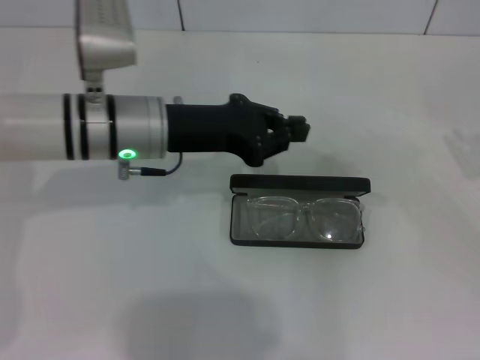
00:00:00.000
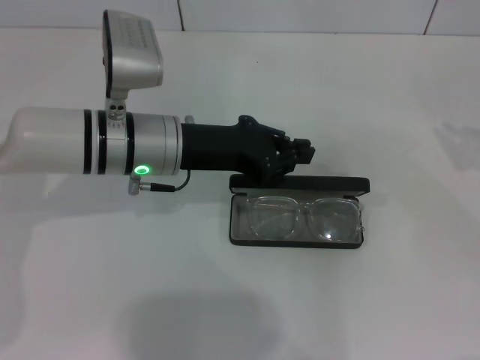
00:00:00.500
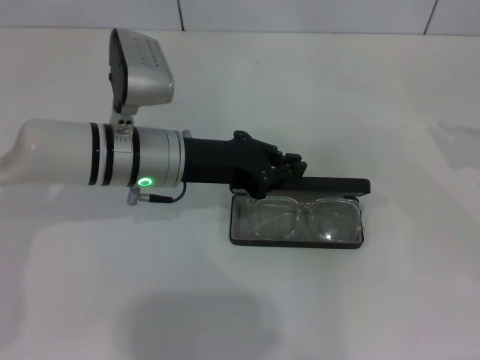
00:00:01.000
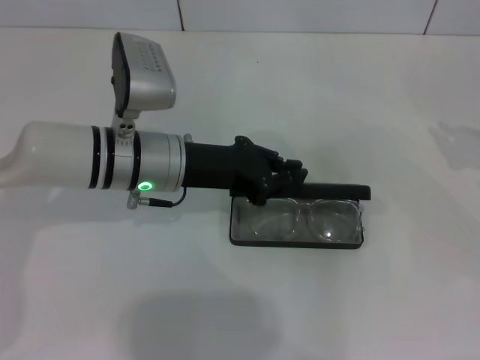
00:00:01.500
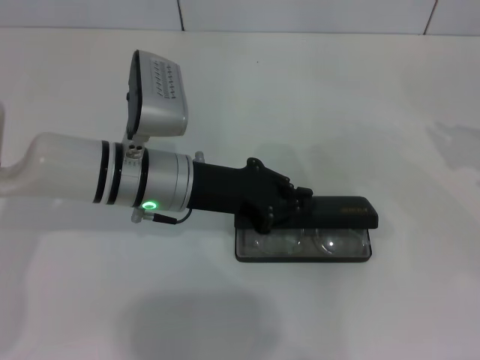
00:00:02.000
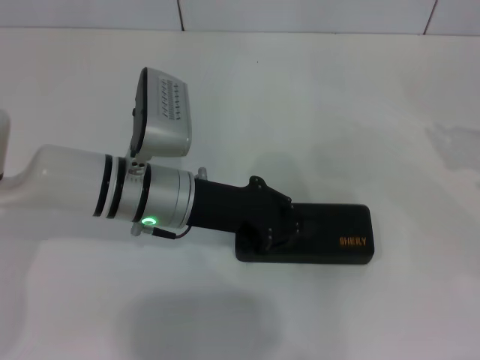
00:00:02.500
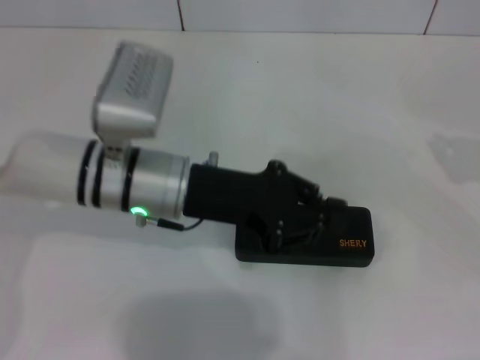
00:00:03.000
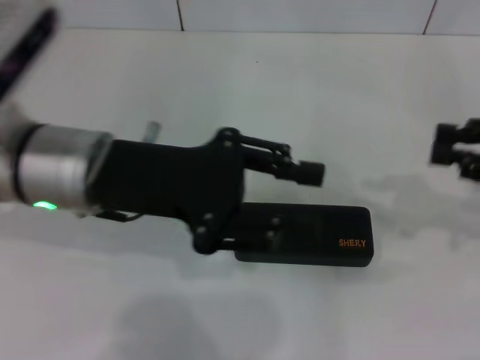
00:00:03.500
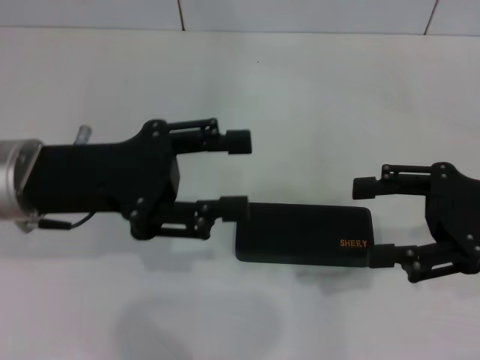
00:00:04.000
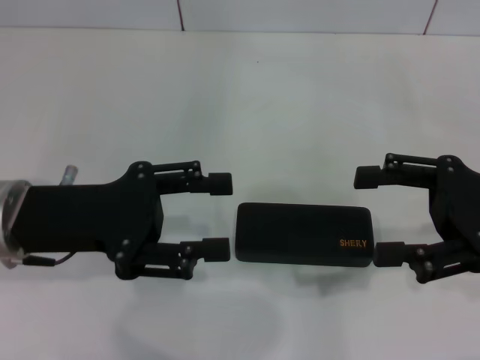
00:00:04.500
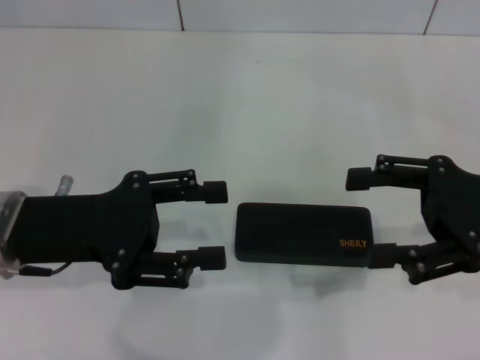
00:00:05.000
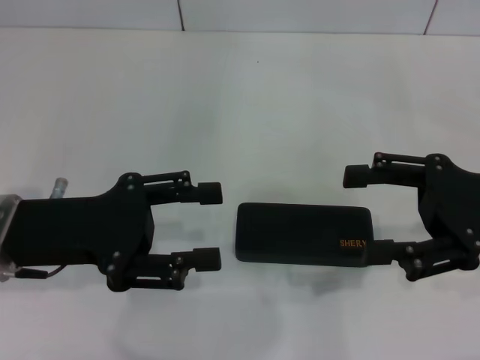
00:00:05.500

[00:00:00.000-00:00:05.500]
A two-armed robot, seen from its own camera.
00:00:02.000 to 00:00:03.500: The left gripper goes roughly 10 cm upward, while the right gripper ends up some 5 cm from where it was.
00:00:03.500 to 00:00:05.500: The two grippers go about 5 cm to the left. The left gripper opens up. Meanwhile the right gripper opens its fingers.

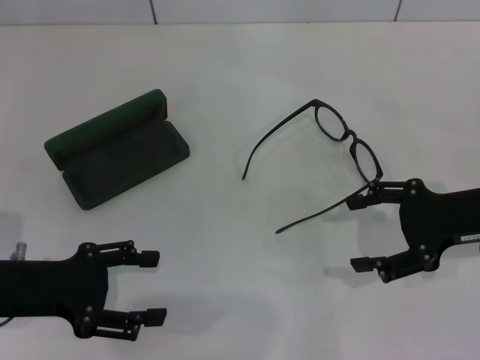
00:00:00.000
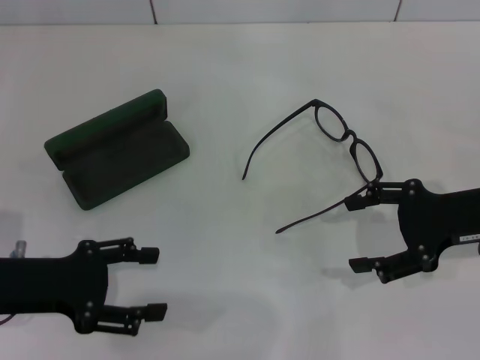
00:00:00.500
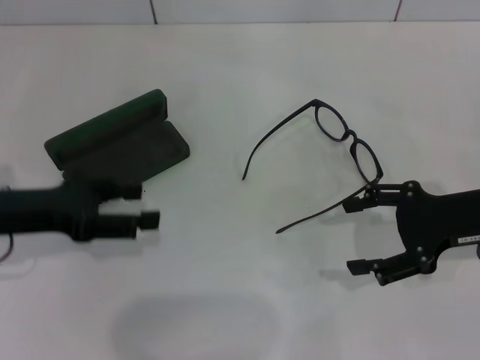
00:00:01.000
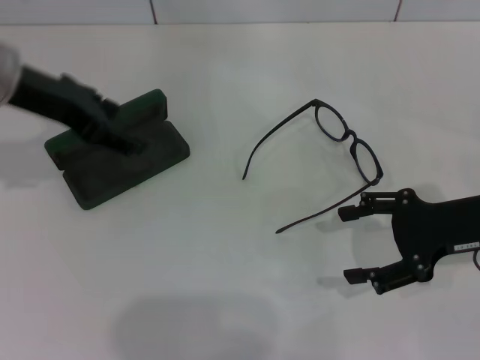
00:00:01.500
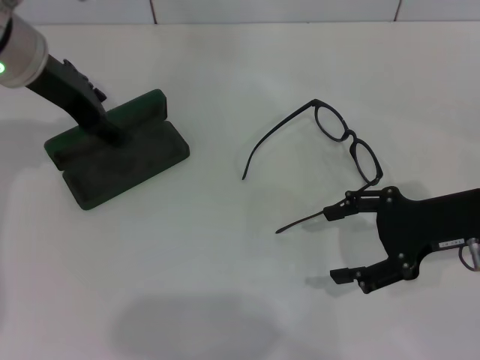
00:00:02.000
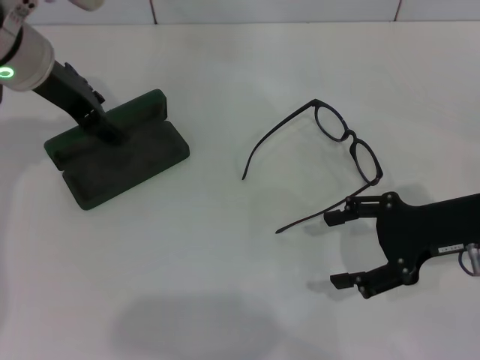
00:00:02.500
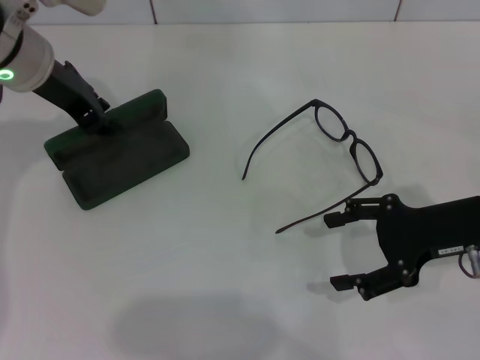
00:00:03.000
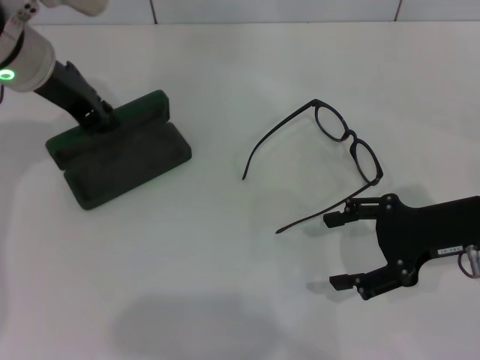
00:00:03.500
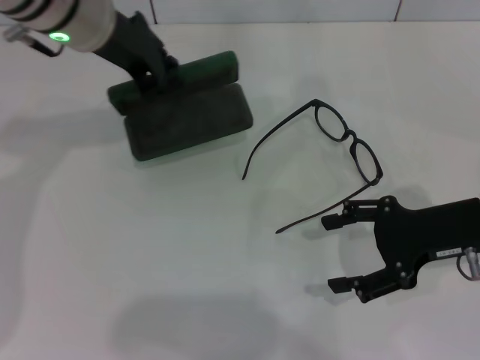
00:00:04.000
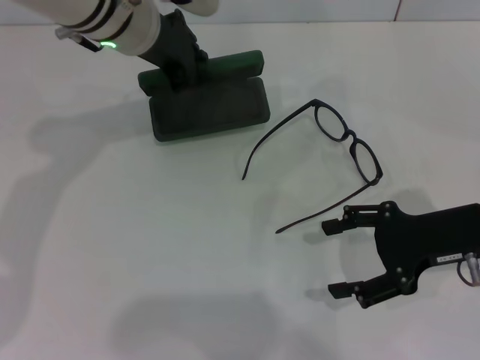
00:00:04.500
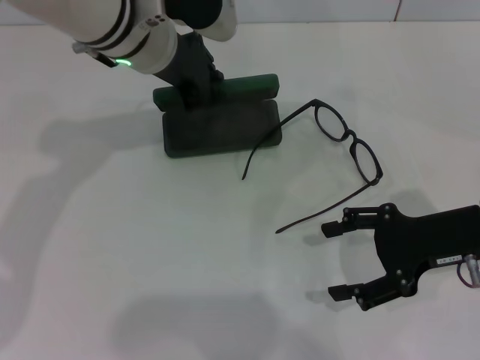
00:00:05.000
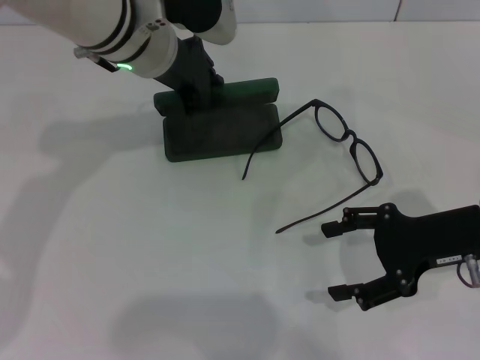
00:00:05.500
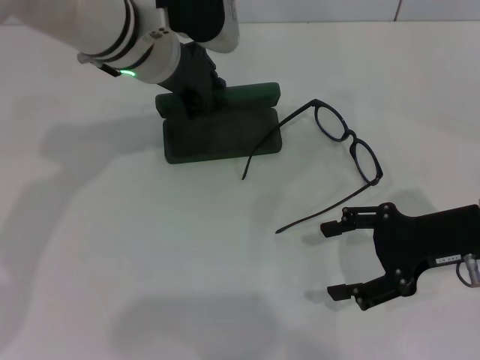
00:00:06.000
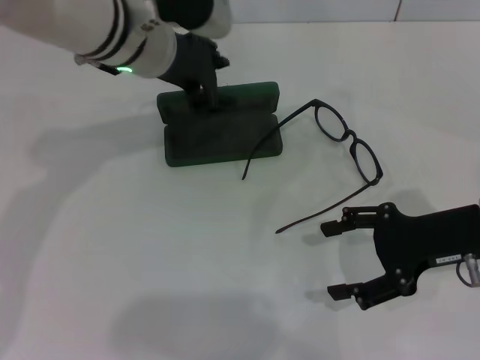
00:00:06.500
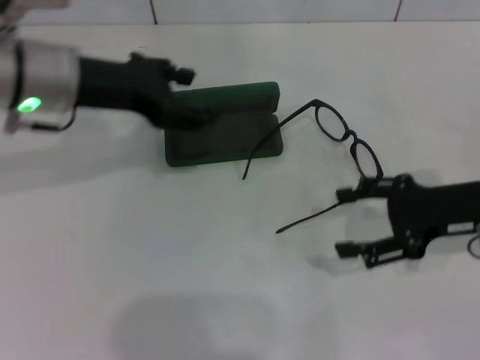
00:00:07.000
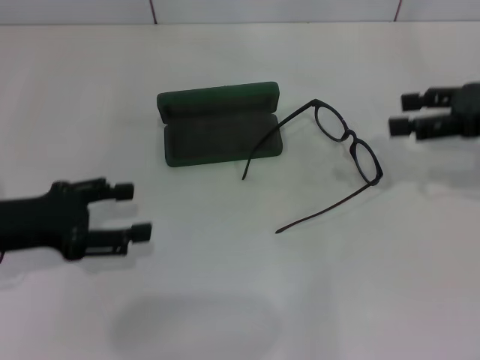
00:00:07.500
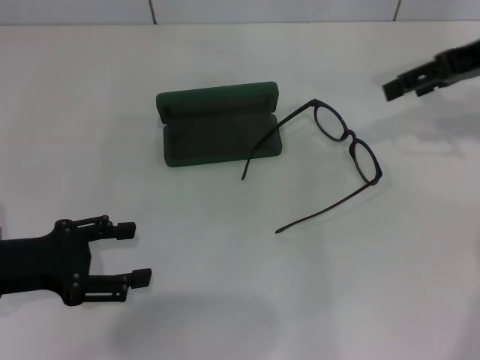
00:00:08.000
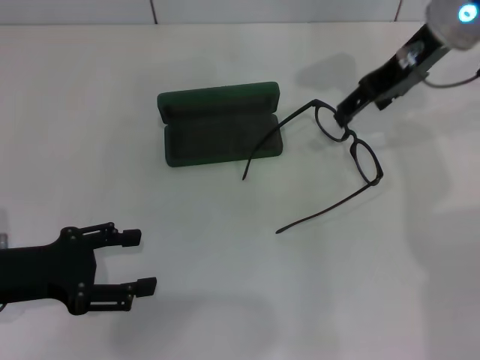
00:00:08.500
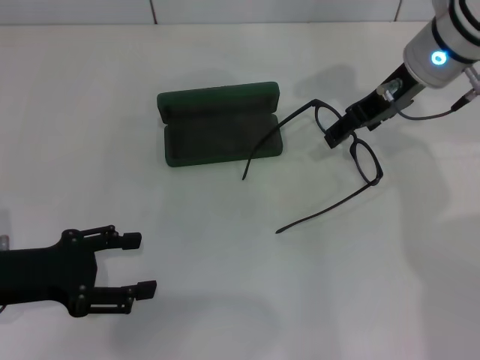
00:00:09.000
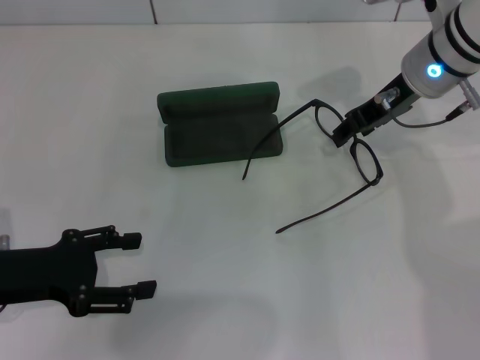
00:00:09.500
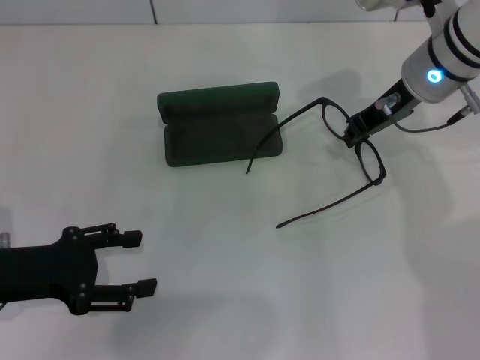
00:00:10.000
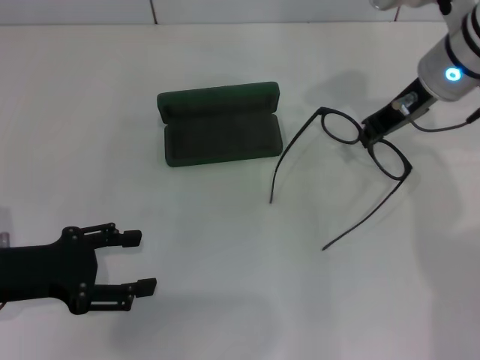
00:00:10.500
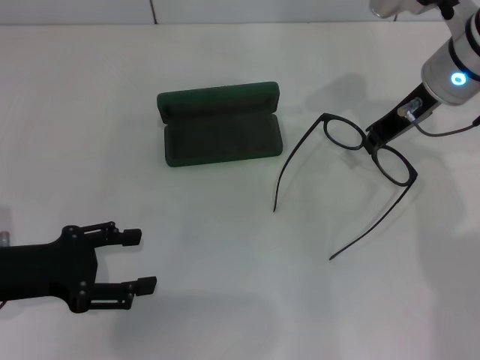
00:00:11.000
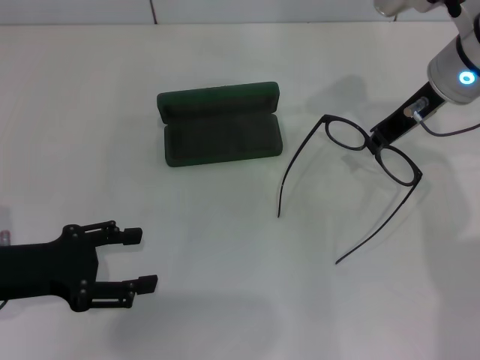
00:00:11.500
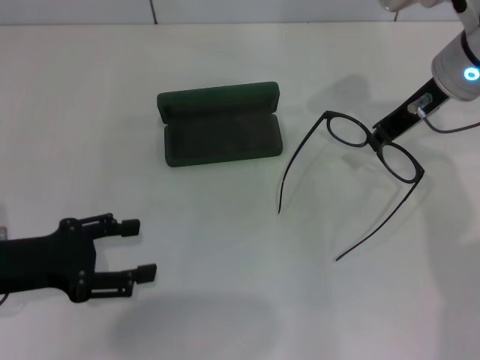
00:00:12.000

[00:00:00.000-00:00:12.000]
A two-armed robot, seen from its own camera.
Step, 00:00:00.000 to 00:00:03.000: Grab the glasses case with your left hand.
Step, 00:00:04.000 to 00:00:06.000: Place the glasses case in the center of the table with your left hand.
Step, 00:00:06.500 to 00:00:10.000: Grab the eyeglass frame with your right hand.
00:00:00.000 to 00:00:02.000: The left gripper moves forward, upward and to the right, some 20 cm.
00:00:02.000 to 00:00:04.000: The left gripper shifts some 5 cm to the right, and closes up.
00:00:04.000 to 00:00:06.000: The left gripper moves about 5 cm.
00:00:06.000 to 00:00:08.000: The left gripper shifts some 30 cm to the left, backward and downward, and opens its fingers. Meanwhile the right gripper travels upward and forward by approximately 20 cm.
00:00:08.000 to 00:00:10.000: The right gripper moves to the left and downward, roughly 15 cm, and closes up.
00:00:10.000 to 00:00:12.000: The grippers make only small movements.

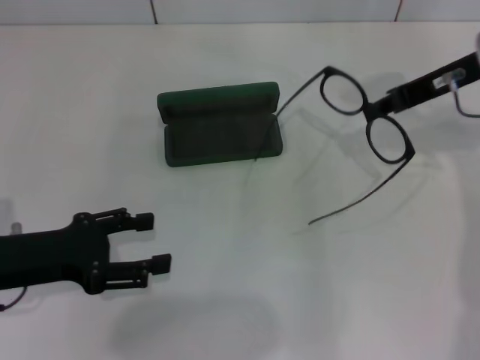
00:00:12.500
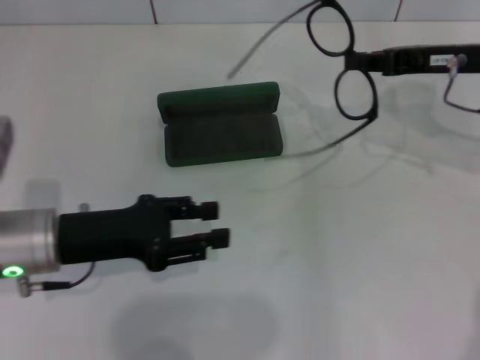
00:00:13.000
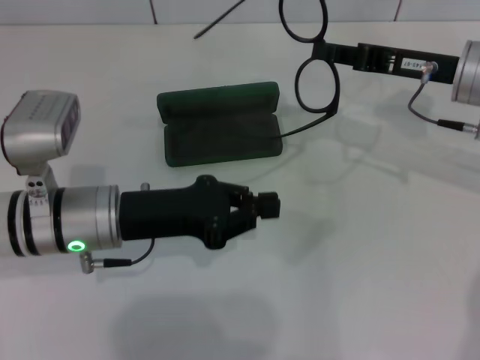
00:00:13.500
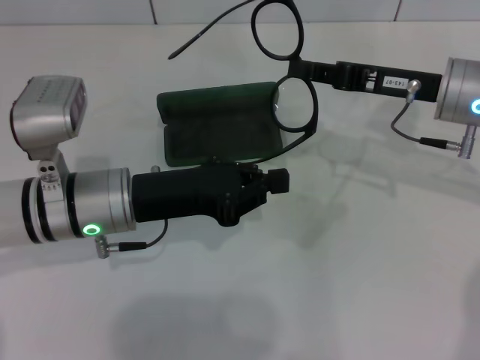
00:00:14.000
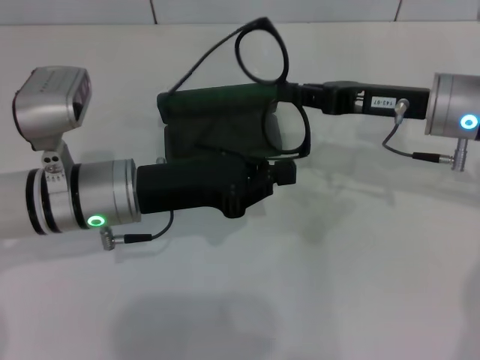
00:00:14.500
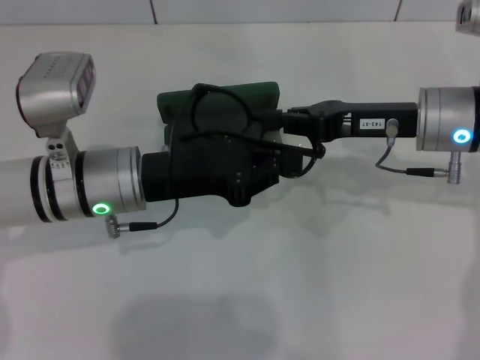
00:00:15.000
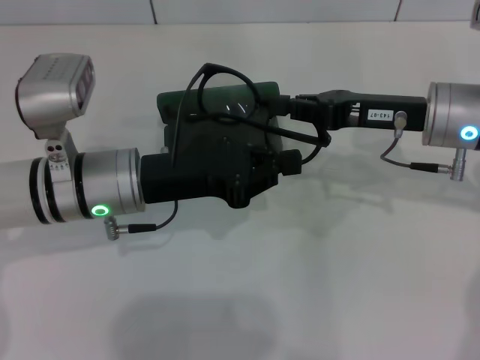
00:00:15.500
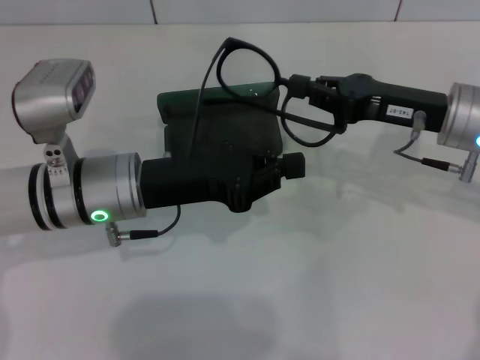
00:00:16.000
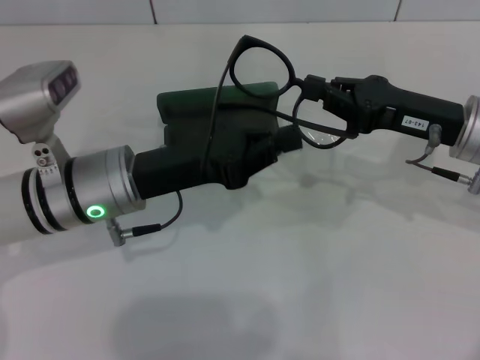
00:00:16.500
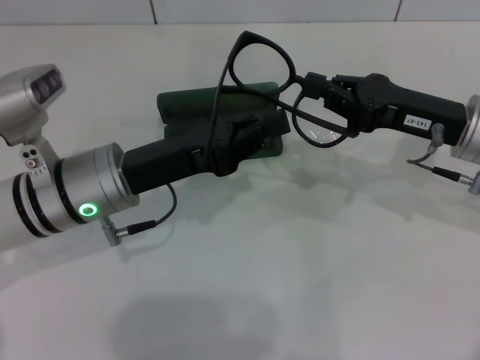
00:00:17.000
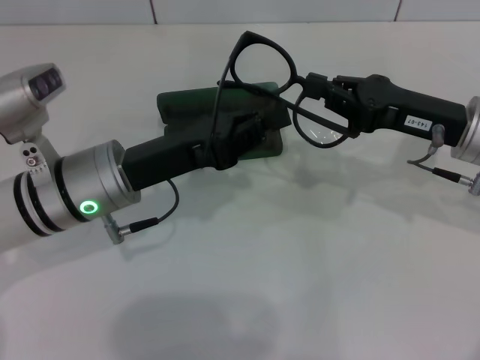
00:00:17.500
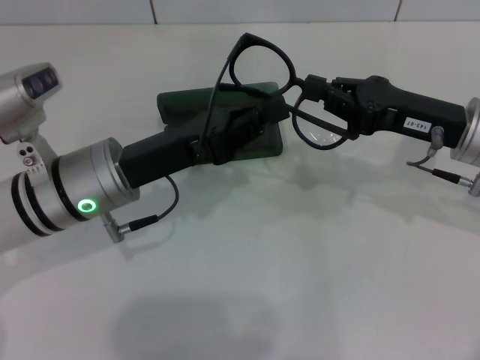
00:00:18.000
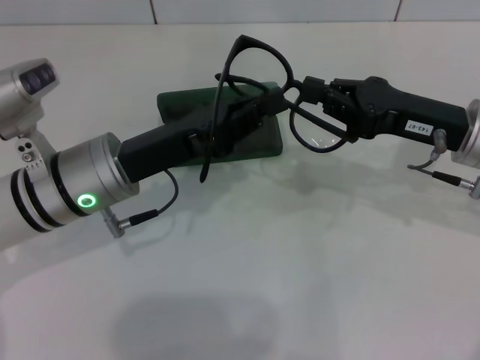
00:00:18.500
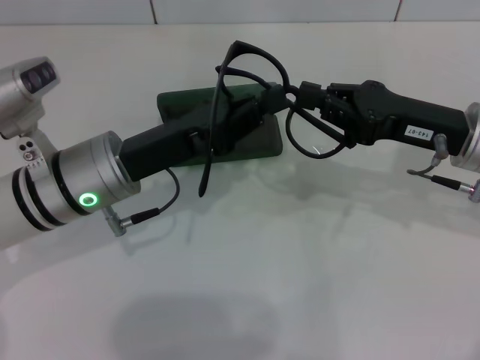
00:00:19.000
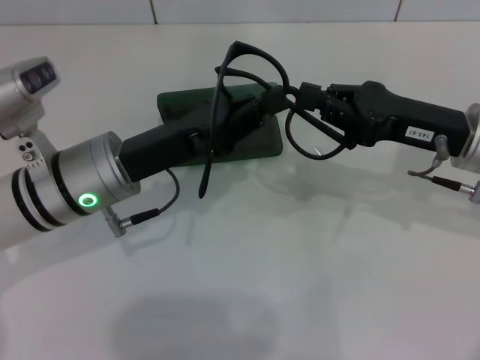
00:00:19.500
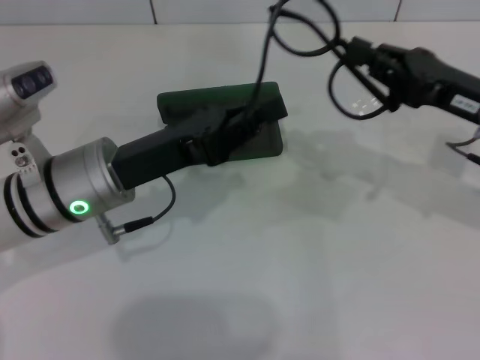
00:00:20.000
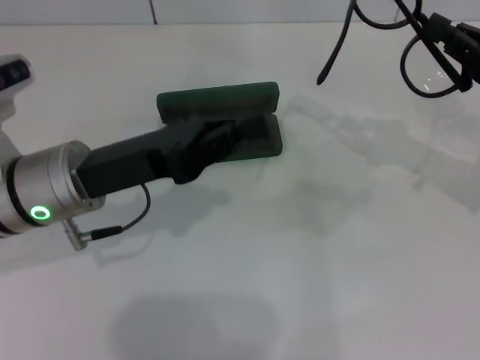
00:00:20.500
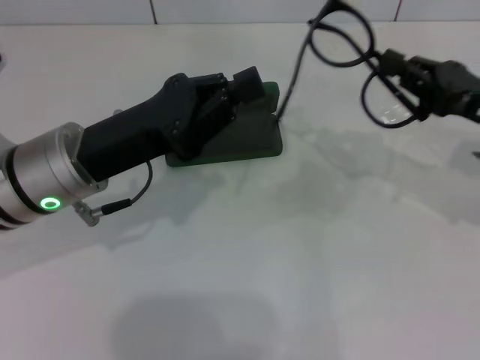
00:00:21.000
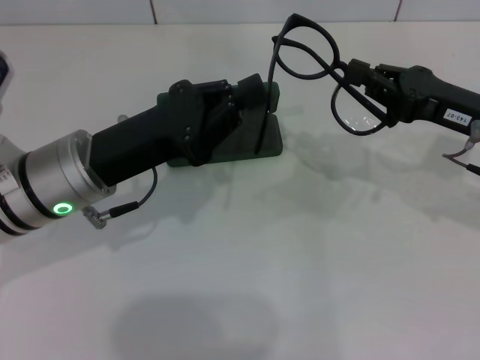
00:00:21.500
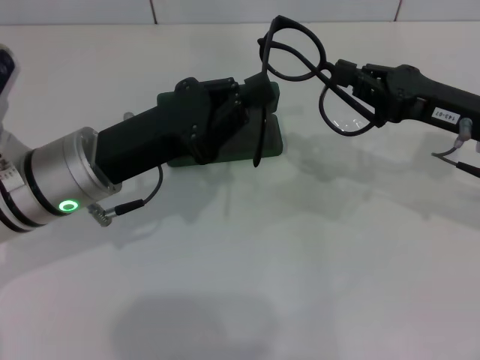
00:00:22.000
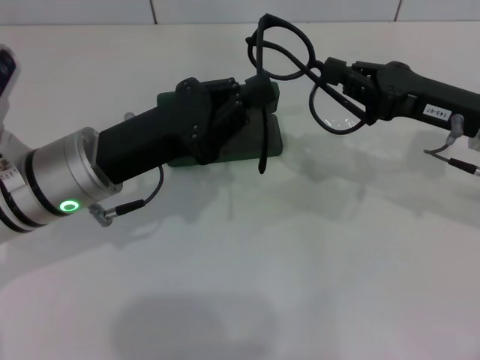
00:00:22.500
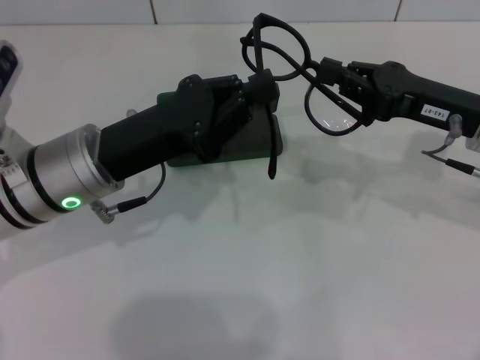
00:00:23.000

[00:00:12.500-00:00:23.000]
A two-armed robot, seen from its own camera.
00:00:12.500 to 00:00:14.500: The right gripper is displaced downward by approximately 5 cm. The left gripper shifts some 15 cm to the right and forward, and closes its fingers.
00:00:14.500 to 00:00:16.500: The grippers make only small movements.
00:00:16.500 to 00:00:19.000: The grippers stay close to where they were, moving slightly.
00:00:19.000 to 00:00:21.000: The right gripper goes about 5 cm to the right.
00:00:21.000 to 00:00:23.000: The grippers move only a little.
